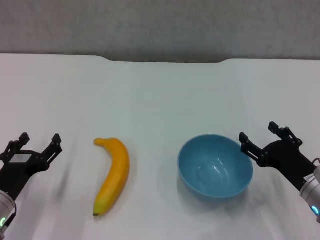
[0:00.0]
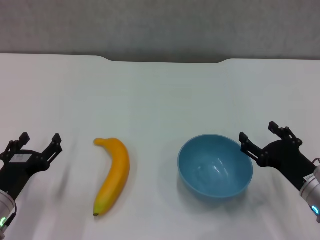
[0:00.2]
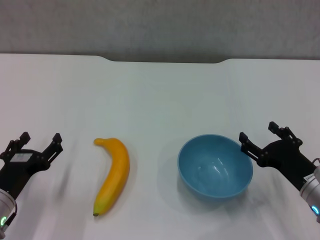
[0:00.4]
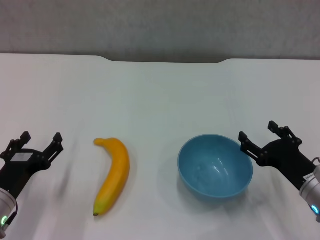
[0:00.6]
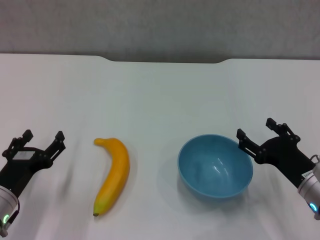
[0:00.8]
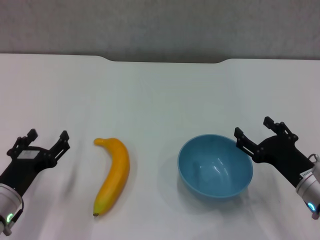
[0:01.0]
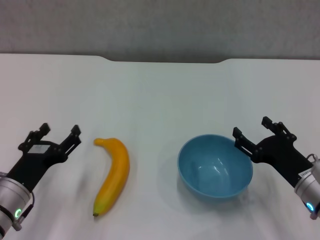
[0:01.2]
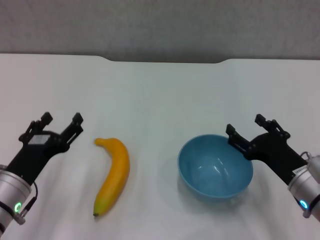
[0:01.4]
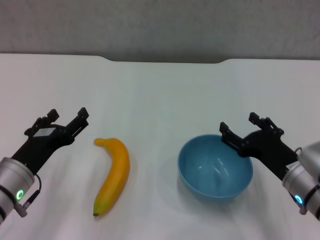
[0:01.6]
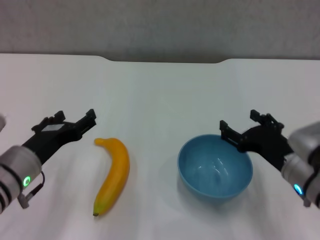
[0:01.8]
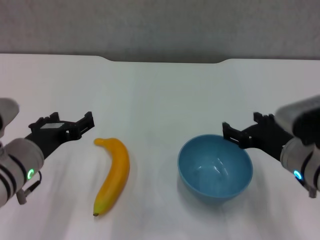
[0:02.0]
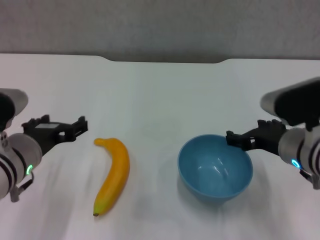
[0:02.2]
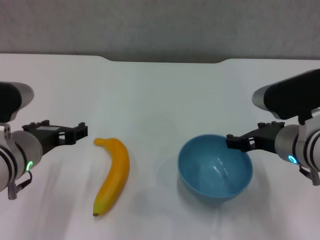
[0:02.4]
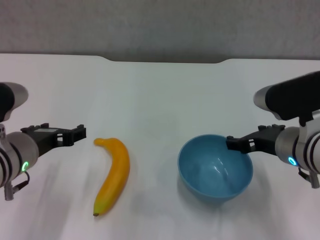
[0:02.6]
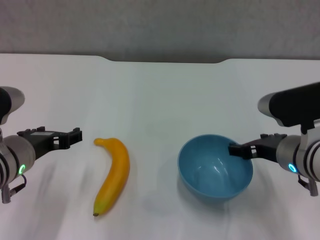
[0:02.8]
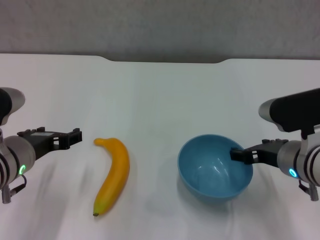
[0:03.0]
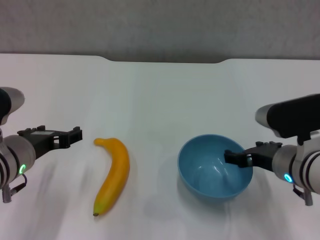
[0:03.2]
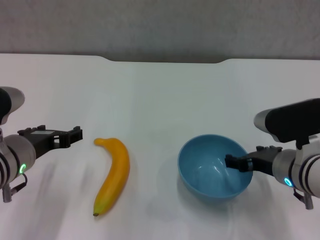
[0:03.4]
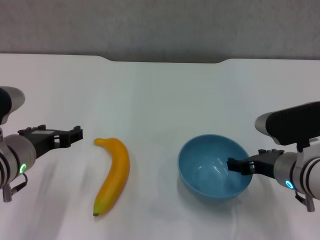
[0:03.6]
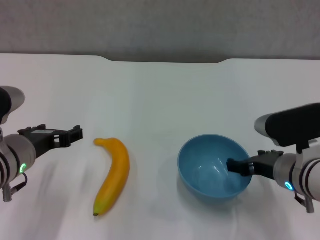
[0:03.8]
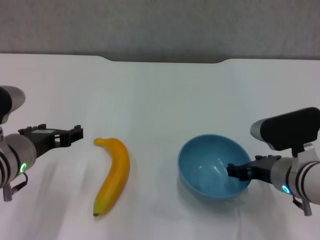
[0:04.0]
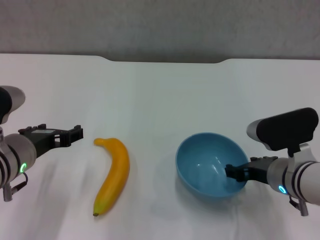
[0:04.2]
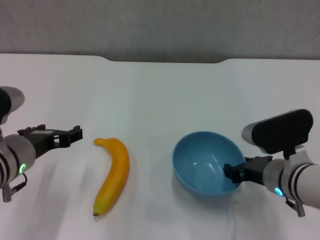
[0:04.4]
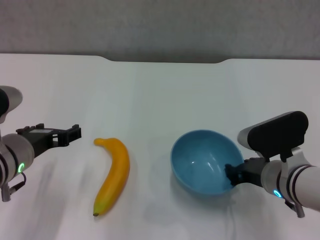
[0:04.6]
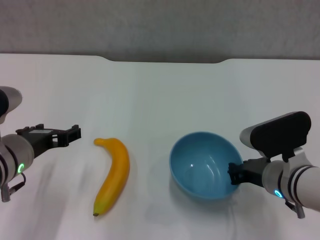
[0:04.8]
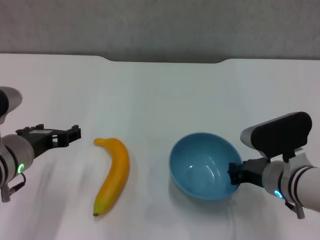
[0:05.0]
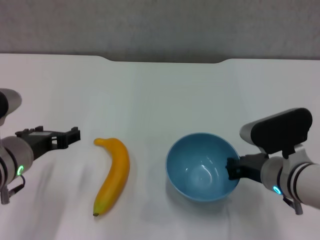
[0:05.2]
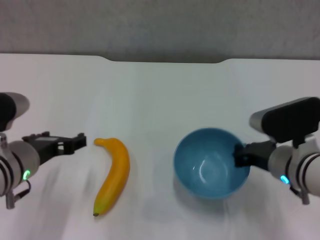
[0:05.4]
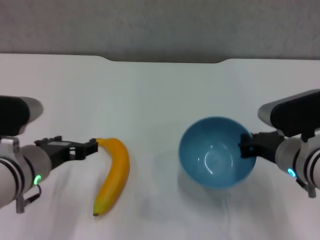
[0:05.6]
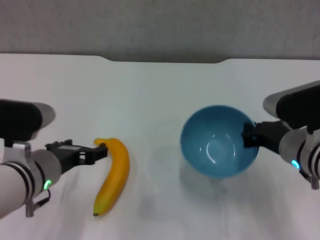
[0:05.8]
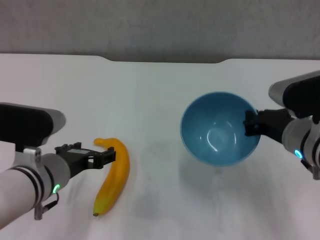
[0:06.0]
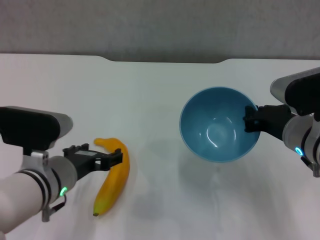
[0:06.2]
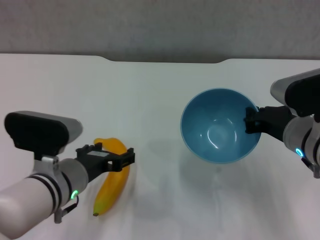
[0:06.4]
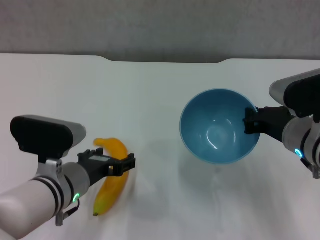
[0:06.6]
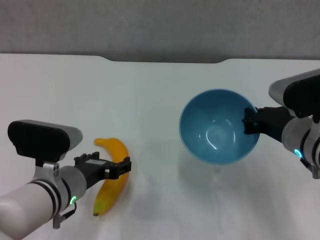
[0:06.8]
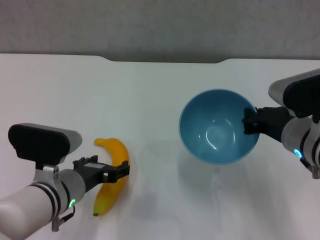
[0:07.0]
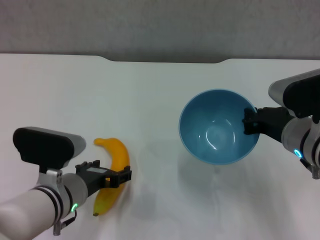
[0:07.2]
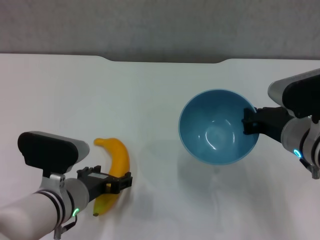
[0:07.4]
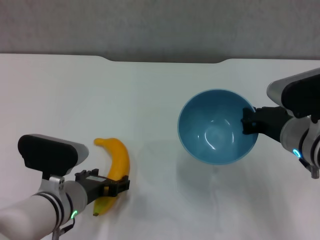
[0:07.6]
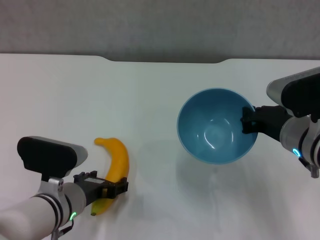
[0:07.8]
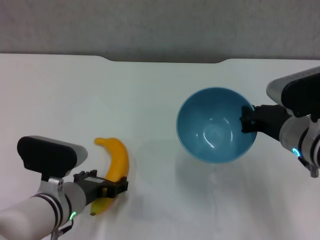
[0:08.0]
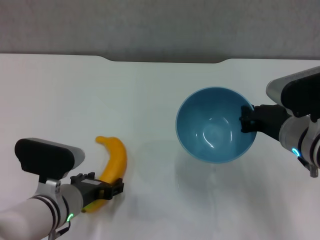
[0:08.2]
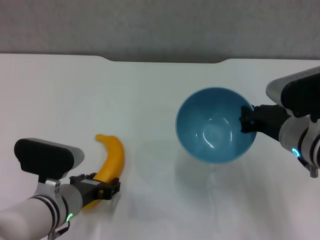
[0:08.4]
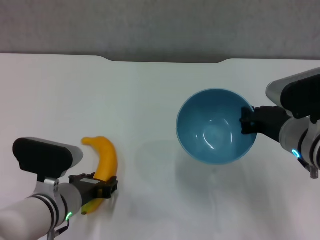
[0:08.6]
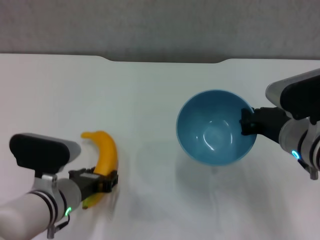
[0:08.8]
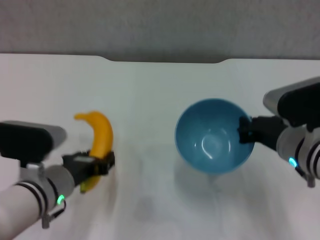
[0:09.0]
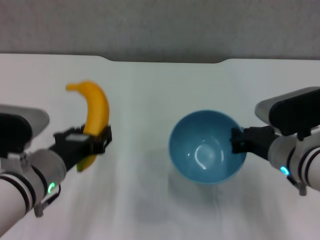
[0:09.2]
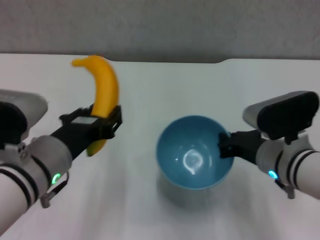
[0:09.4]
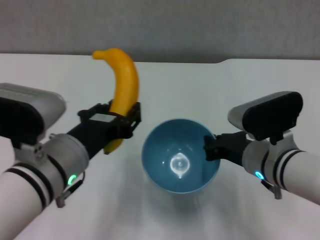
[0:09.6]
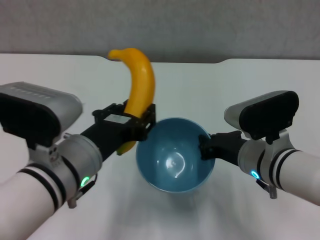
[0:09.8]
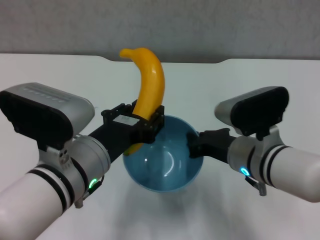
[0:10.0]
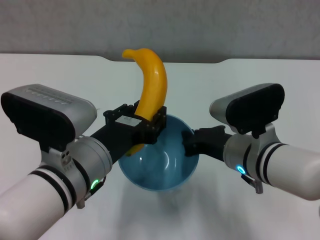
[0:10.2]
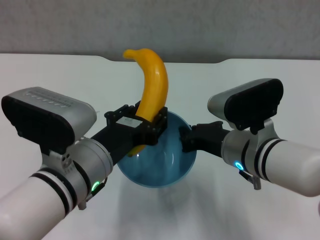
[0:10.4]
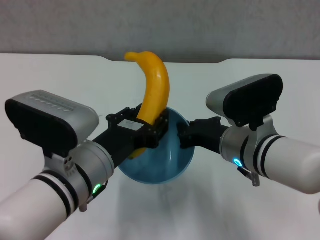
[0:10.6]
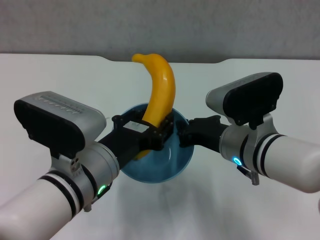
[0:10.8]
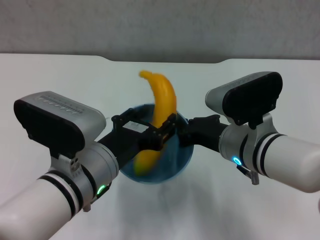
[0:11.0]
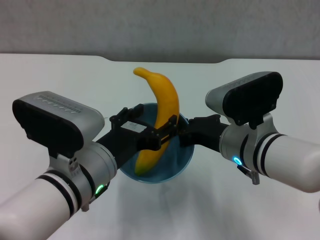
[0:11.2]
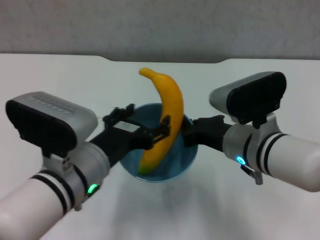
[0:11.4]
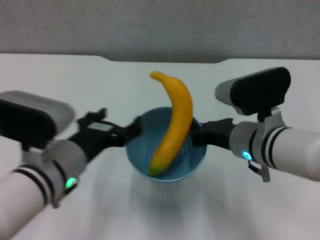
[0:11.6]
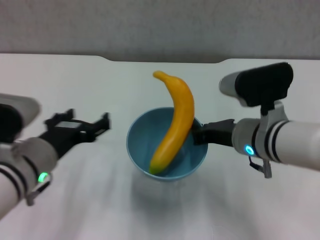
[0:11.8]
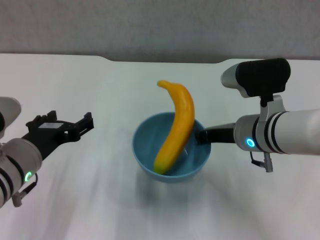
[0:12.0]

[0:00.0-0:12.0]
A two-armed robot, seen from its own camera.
Step, 0:00.0 to 0:04.8: Grasp the blue bowl with right gripper.
Step, 0:05.0 to 0:06.2: Lift the blue bowl with right gripper.
Step, 0:06.4 to 0:08.4: Grasp the banana with left gripper.
Step, 0:08.6 to 0:11.2: Place the banana in the blue bowl with left gripper.
0:00.0 to 0:01.6: The left gripper heads upward, covering some 5 cm.
0:01.6 to 0:03.0: The left gripper goes roughly 5 cm upward. Meanwhile the right gripper shifts by approximately 5 cm.
0:03.0 to 0:04.4: There are only small adjustments of the grippers.
0:04.4 to 0:06.0: The right gripper is displaced upward by about 5 cm, and closes its fingers.
0:06.0 to 0:07.6: The left gripper moves downward, roughly 5 cm.
0:07.6 to 0:09.0: The left gripper closes up.
0:09.0 to 0:10.4: The right gripper goes some 5 cm to the left. The left gripper heads to the right and upward, covering roughly 10 cm.
0:10.4 to 0:12.0: The left gripper is displaced to the left by roughly 10 cm, and opens its fingers.

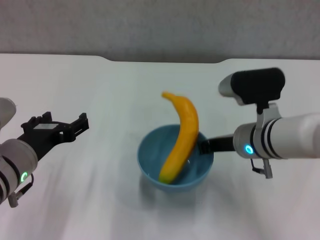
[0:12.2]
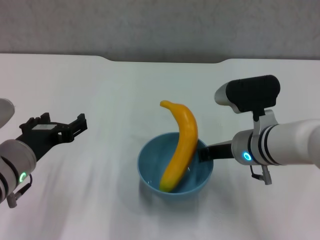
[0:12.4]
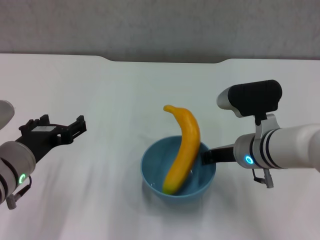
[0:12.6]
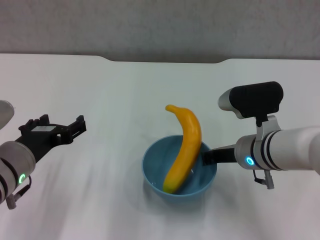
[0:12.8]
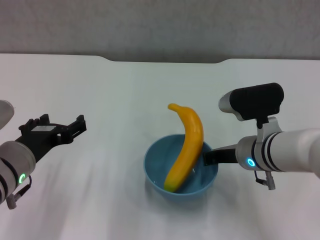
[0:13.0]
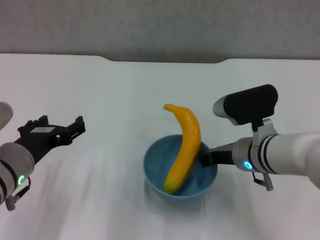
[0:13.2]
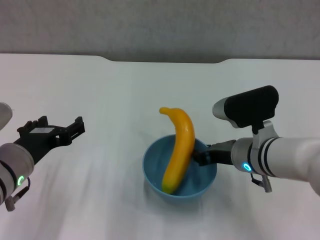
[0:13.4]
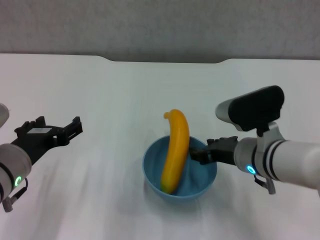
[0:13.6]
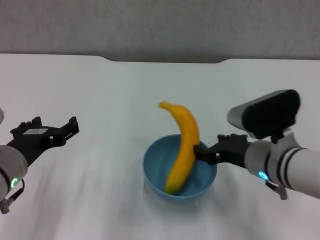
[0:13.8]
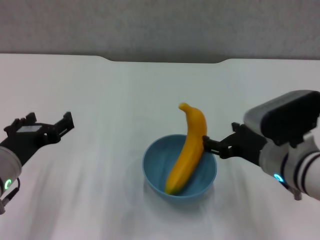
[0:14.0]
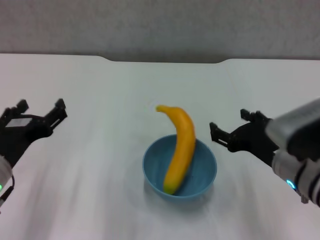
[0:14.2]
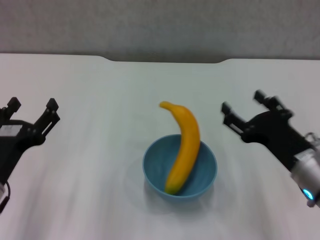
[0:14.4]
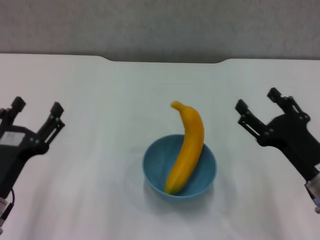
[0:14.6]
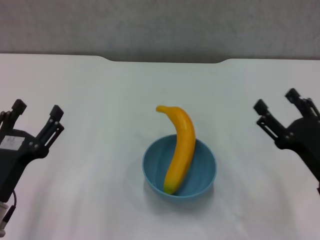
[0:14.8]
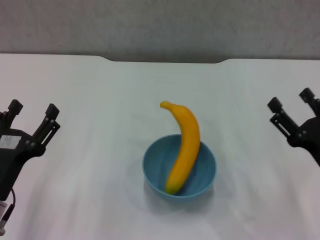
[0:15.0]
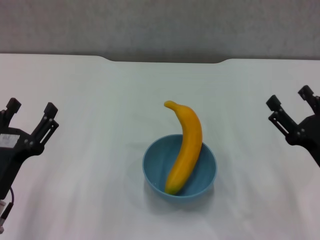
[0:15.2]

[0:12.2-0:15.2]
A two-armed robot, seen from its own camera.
Step, 0:12.2 to 0:13.8: Place the bowl on the table with right gripper.
0:12.2 to 0:13.8: The right gripper opens up.
0:13.8 to 0:15.2: The left gripper goes roughly 5 cm downward. The right gripper heads to the right and backward, covering roughly 15 cm, and opens up.

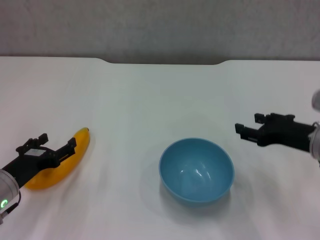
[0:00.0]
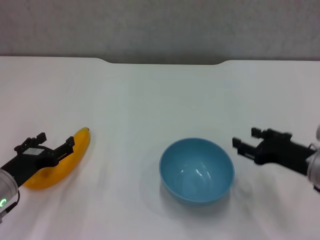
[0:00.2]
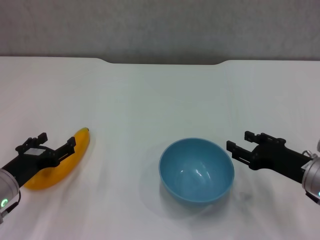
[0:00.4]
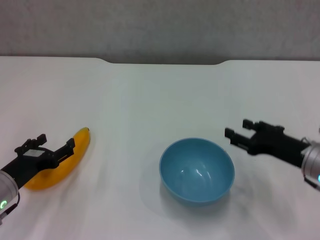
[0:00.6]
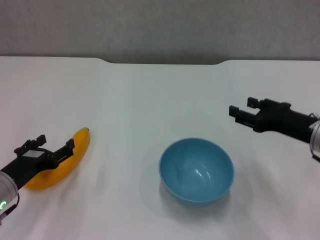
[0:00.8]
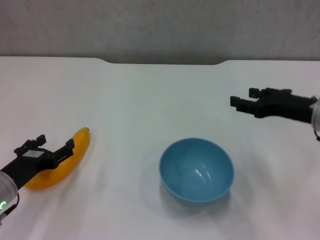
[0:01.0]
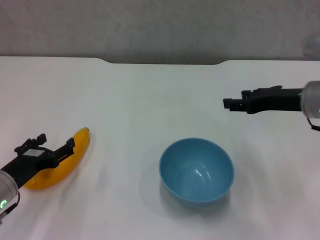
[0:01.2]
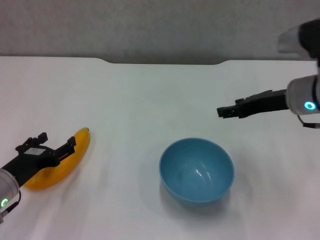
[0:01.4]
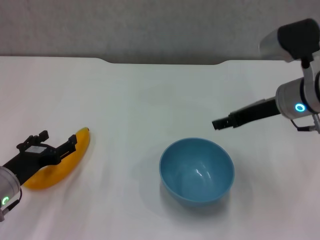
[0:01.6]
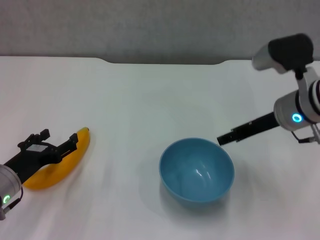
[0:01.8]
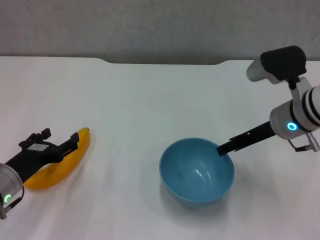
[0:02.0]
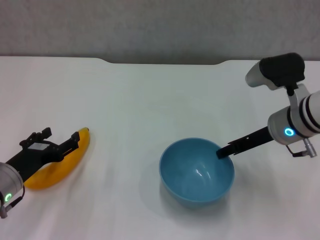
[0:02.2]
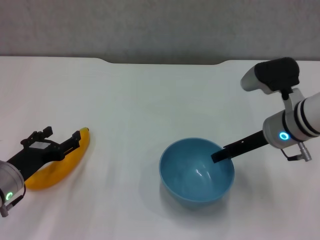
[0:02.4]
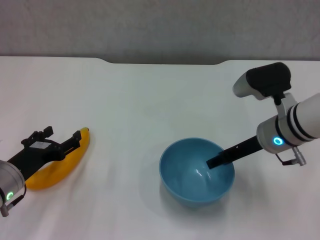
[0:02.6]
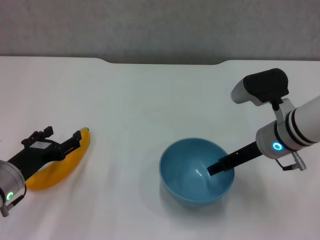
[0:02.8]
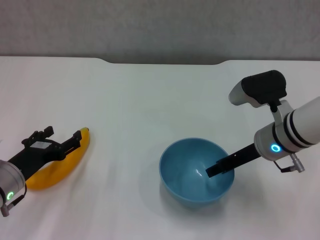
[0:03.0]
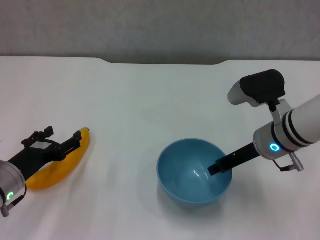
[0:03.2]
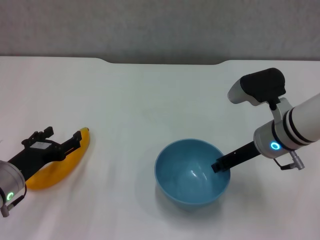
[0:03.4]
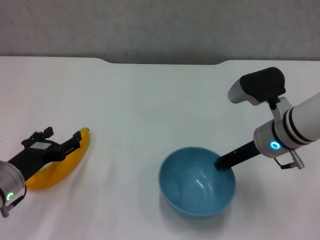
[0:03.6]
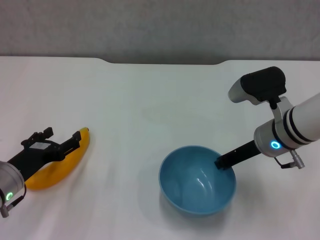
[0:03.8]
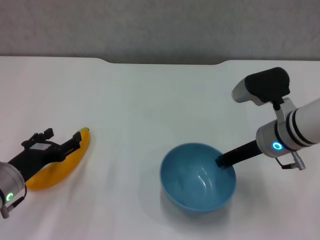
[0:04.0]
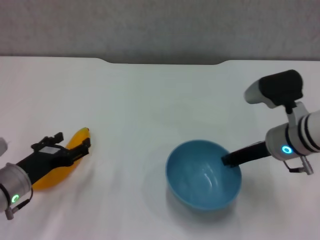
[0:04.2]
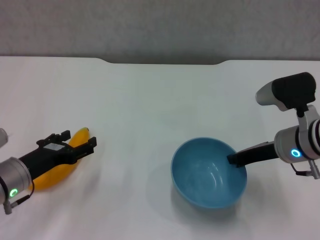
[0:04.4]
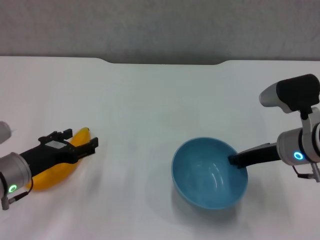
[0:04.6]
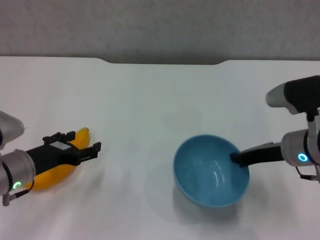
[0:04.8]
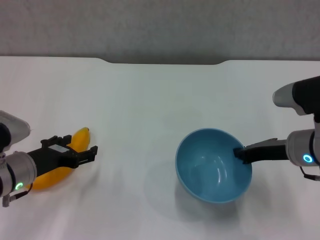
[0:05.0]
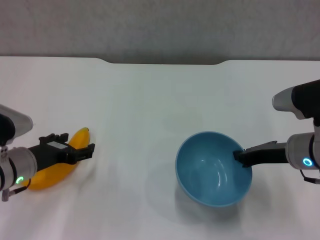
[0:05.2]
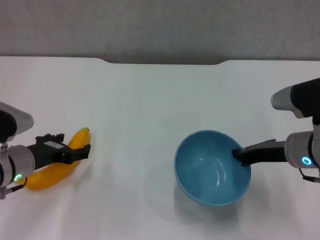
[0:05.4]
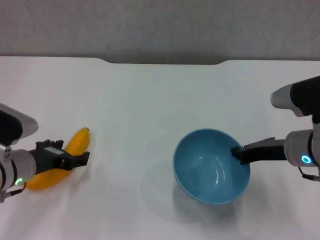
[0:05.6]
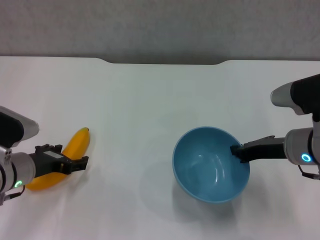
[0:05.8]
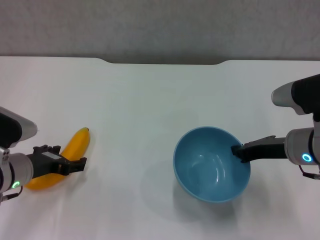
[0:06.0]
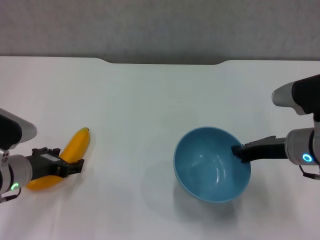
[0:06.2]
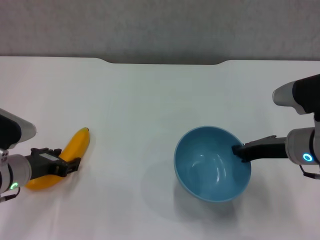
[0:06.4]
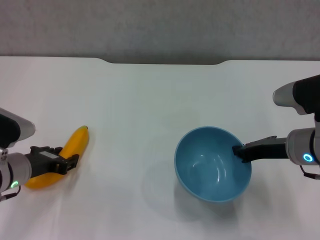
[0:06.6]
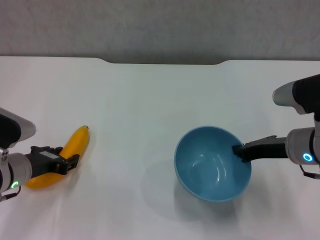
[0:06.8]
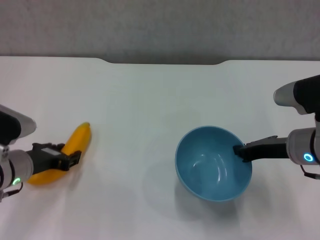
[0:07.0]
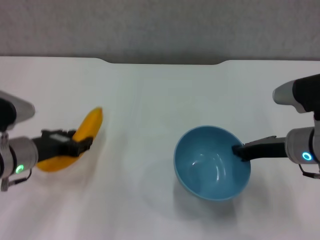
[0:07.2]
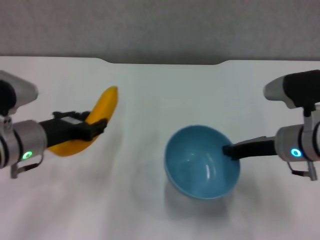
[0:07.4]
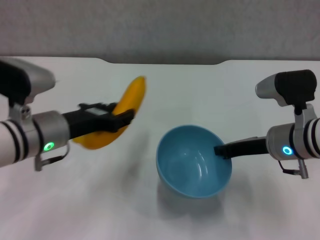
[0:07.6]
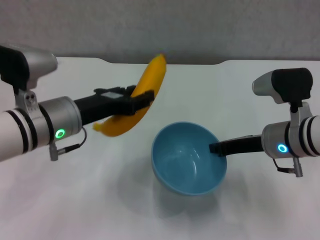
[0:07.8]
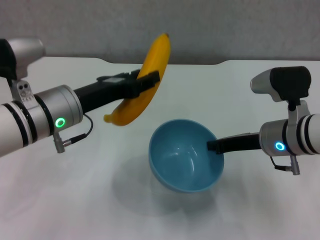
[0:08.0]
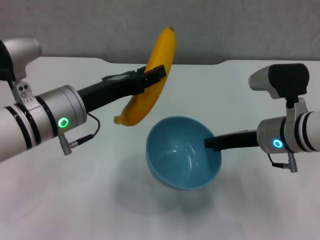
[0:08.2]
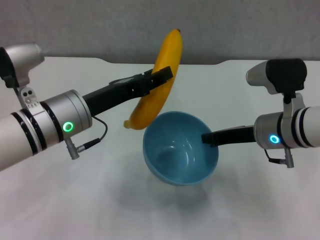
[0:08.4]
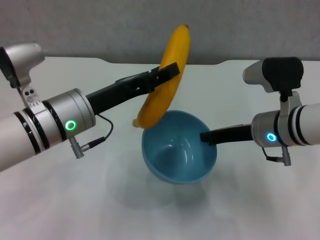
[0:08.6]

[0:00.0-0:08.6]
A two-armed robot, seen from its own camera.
Step, 0:00.0 to 0:03.6: Grasp the blue bowl with right gripper.
Step, 0:03.8 to 0:05.0: Lift the blue bowl with right gripper.
Step, 0:05.2 to 0:06.4: Grasp the banana with left gripper.
0:00.0 to 0:01.4: The right gripper travels forward and upward by some 10 cm.
0:01.4 to 0:02.8: The right gripper shifts approximately 5 cm downward.
0:02.8 to 0:04.4: The right gripper closes up.
0:05.8 to 0:07.2: The left gripper closes its fingers.
0:07.2 to 0:08.6: The right gripper moves about 5 cm, while the left gripper moves to the right and upward, about 10 cm.
